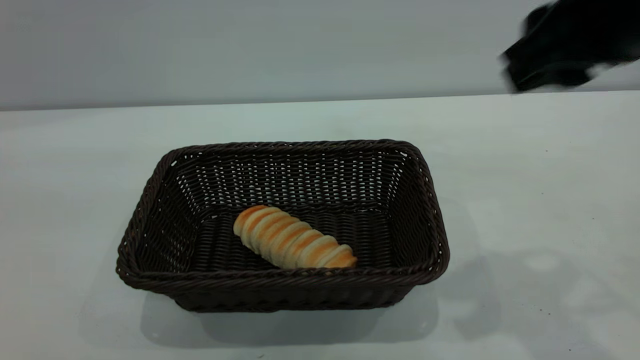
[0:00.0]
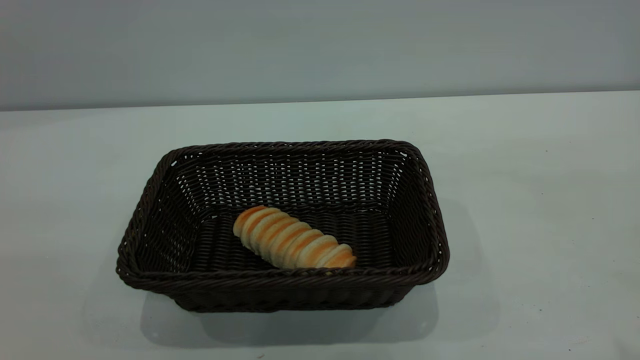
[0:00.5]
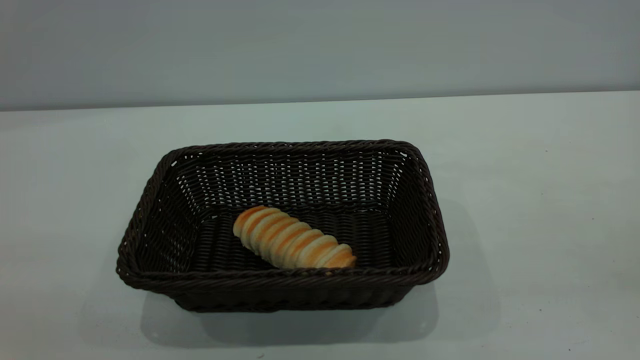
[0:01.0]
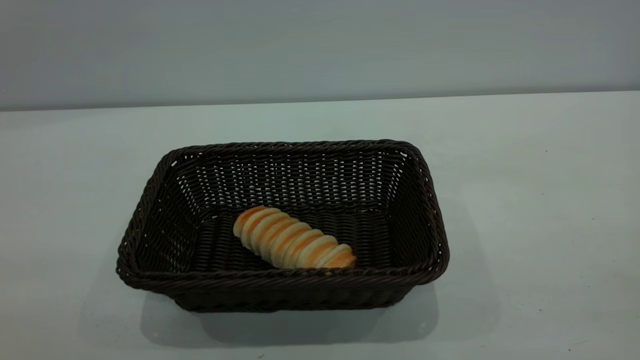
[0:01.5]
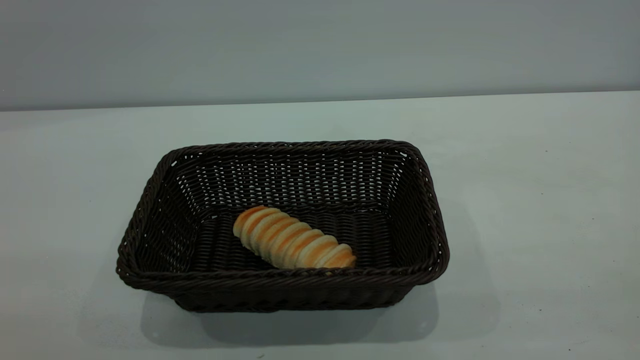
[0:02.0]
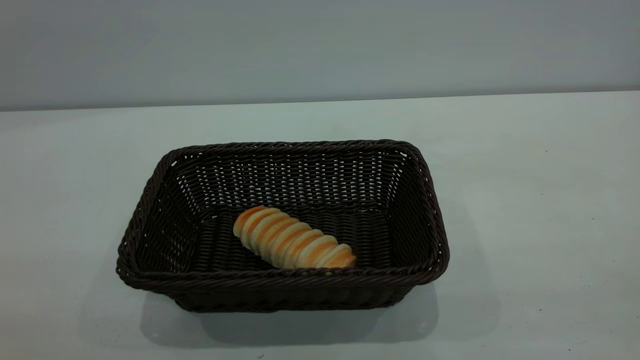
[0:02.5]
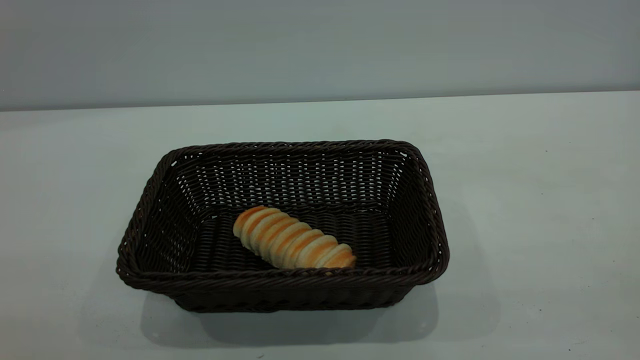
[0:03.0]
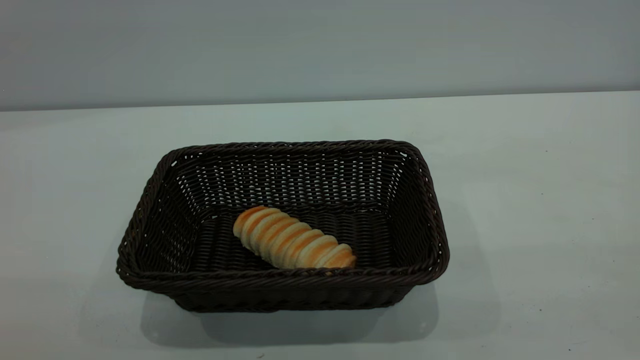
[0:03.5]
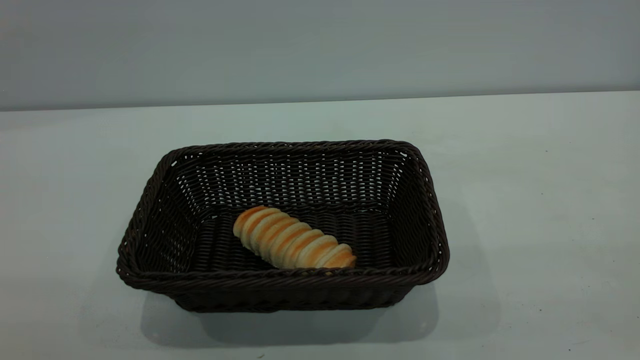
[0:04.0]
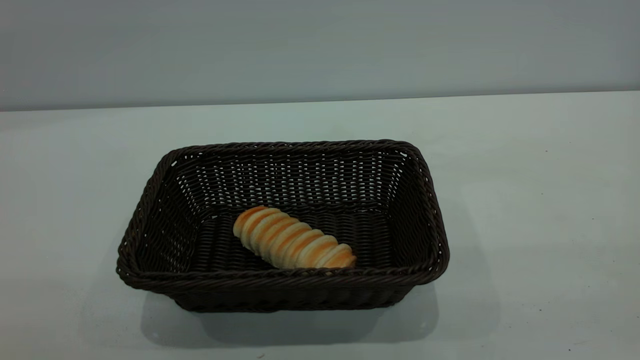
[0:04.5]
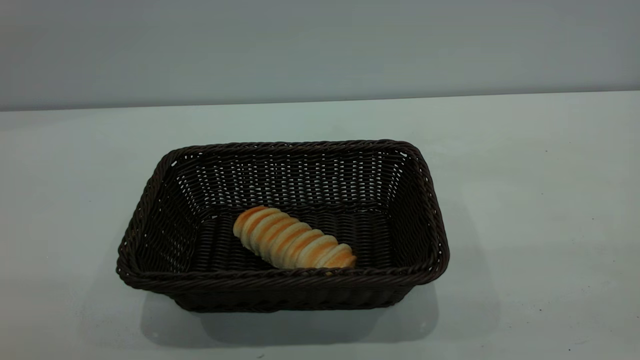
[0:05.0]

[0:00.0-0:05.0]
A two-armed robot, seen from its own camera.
Task of the whole recording: One hand grasps the black basket and places it in the middle of the table, while the other hand picks up the long bread and puts it into the black basket.
0:00.0 to 0:02.5: The right gripper heads backward and to the right, covering about 25 cm.
